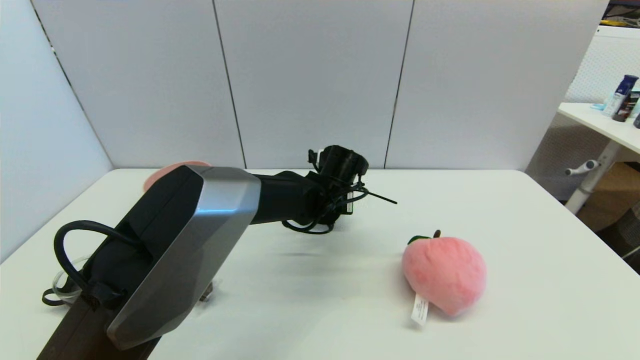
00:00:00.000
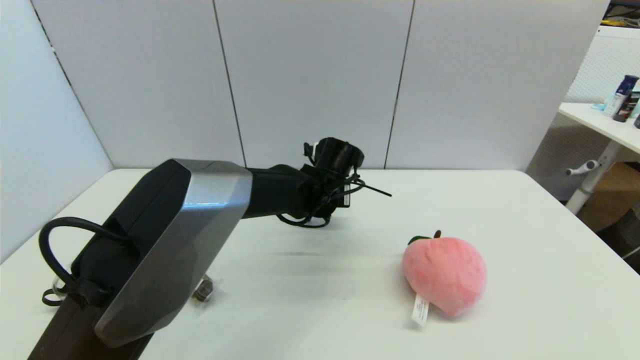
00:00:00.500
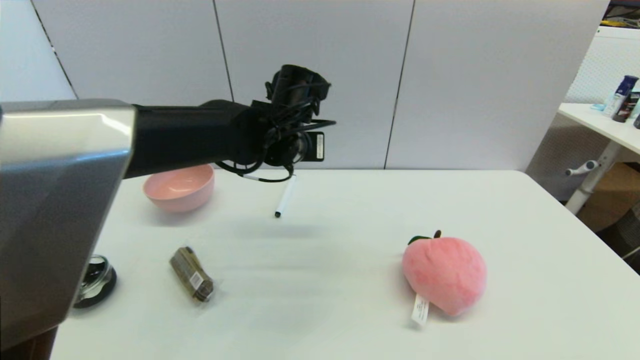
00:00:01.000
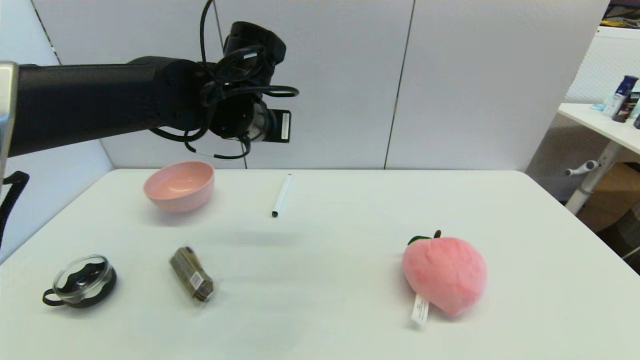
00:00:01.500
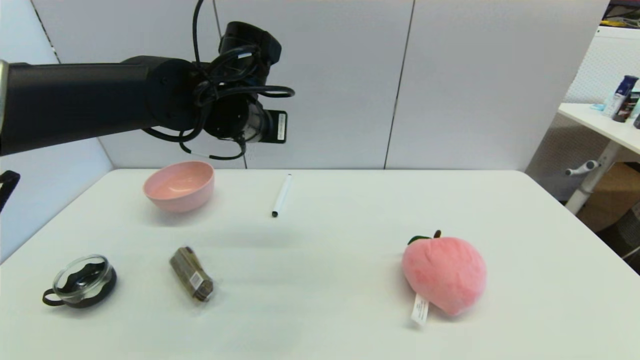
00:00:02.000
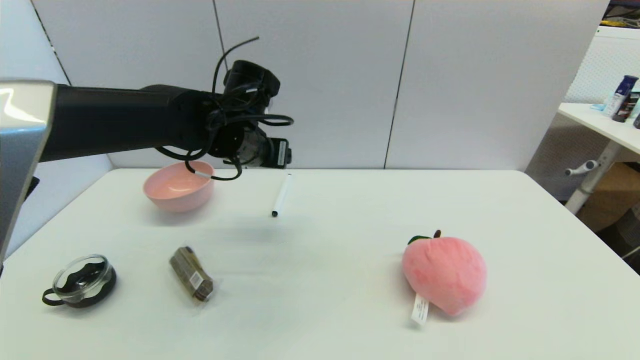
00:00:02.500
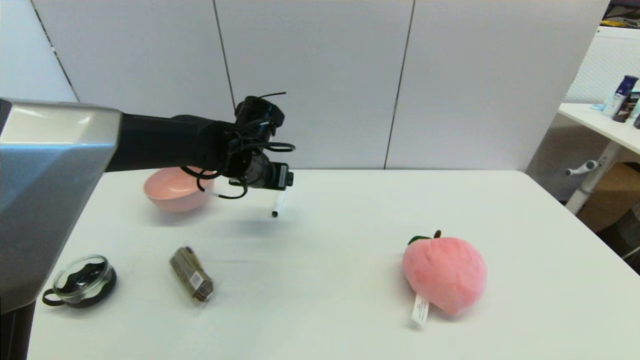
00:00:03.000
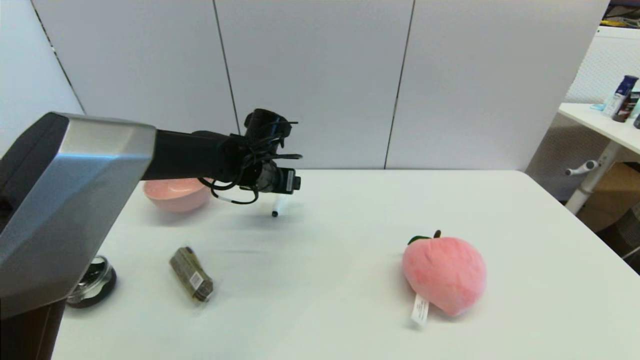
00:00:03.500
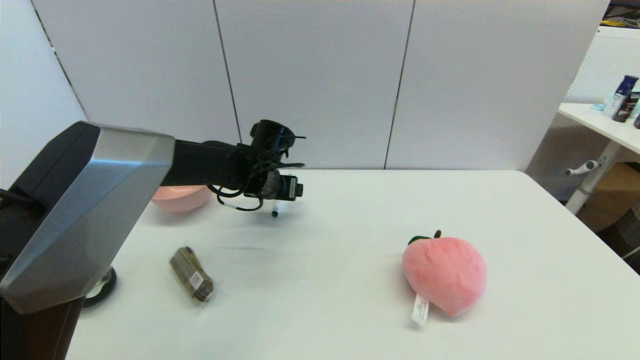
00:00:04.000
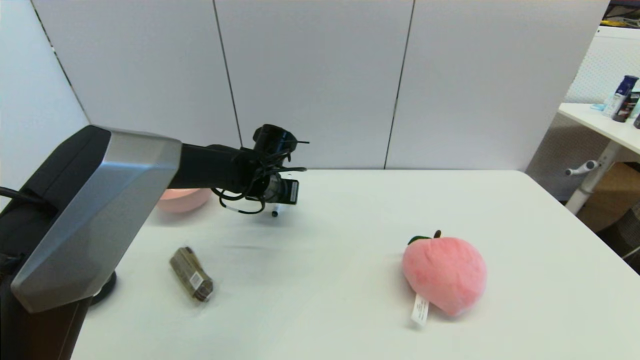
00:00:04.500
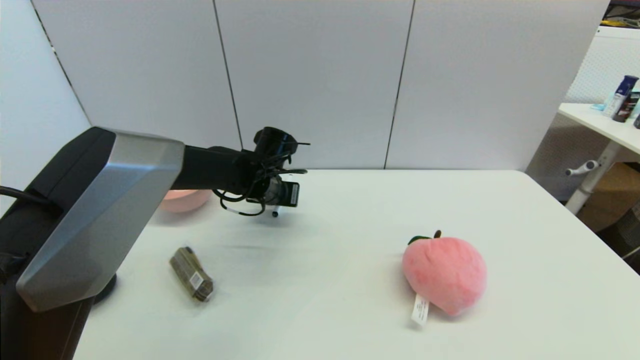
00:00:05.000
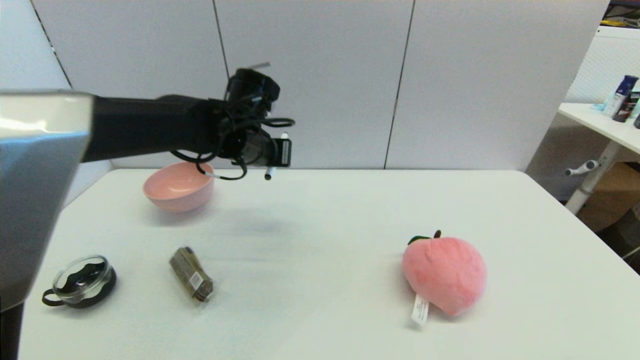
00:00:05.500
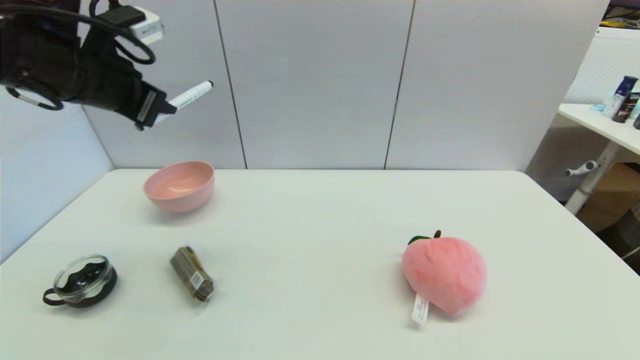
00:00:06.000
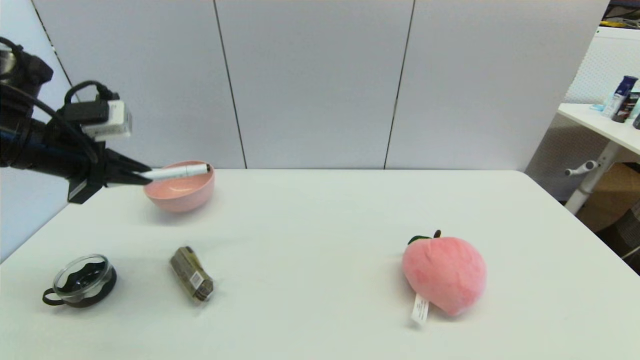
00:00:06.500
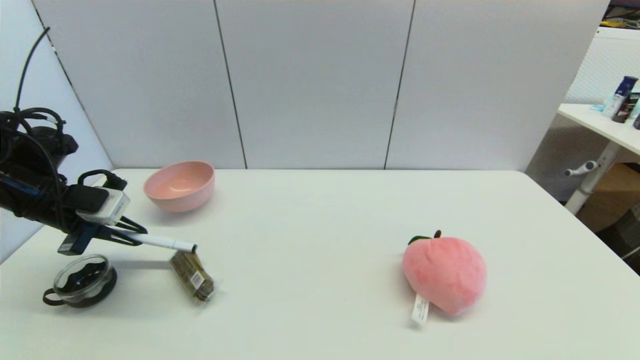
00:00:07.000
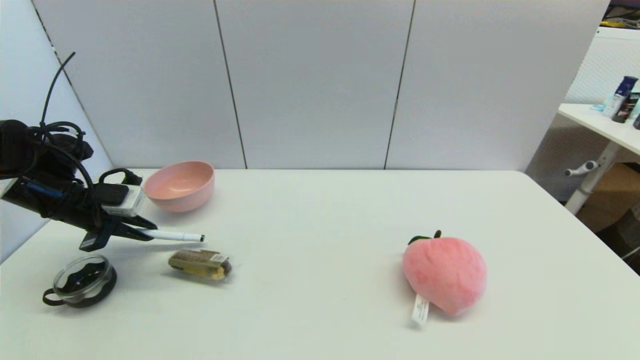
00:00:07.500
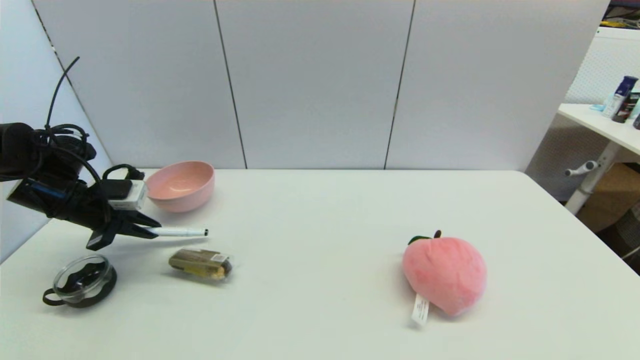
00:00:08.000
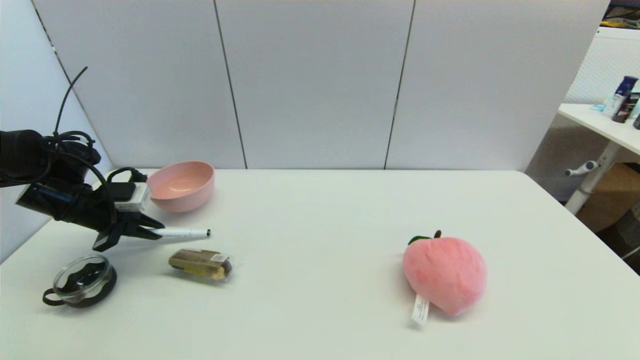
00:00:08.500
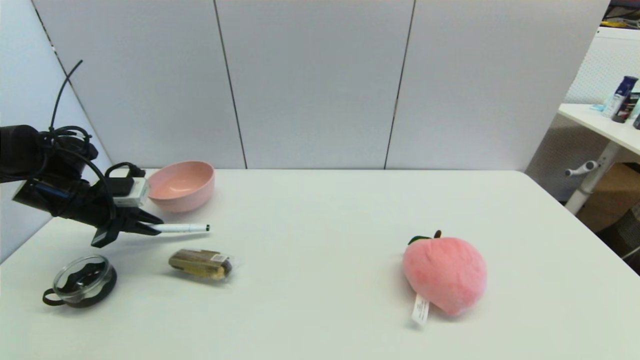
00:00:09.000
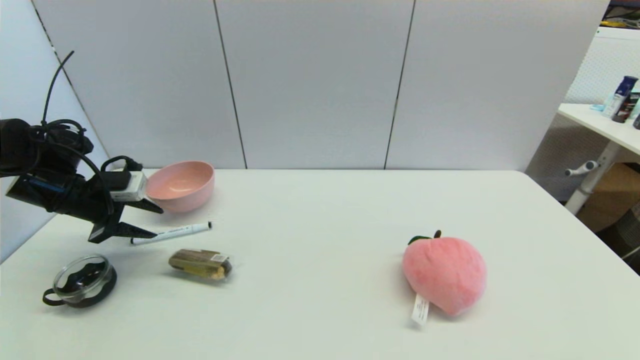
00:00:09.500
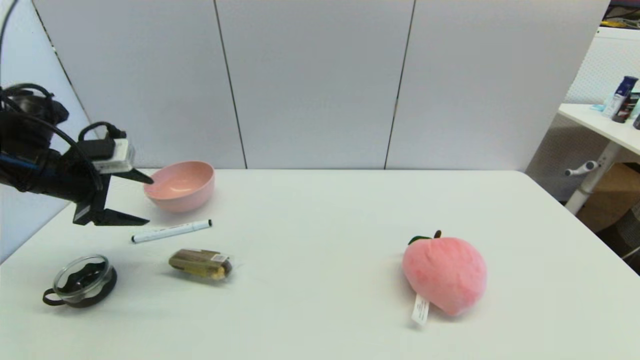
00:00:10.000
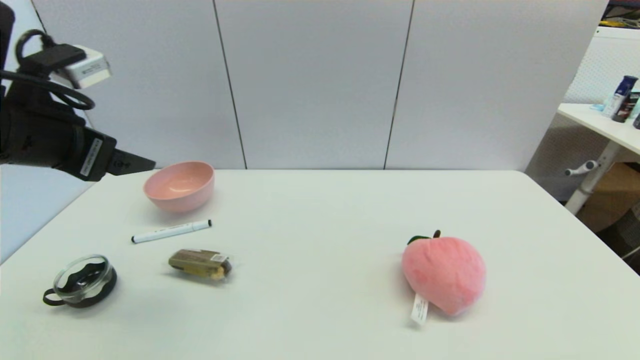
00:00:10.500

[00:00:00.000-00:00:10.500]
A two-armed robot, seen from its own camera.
Task of the whole recording: put the black marker in the designated position.
Step, 00:00:00.000 to 00:00:04.500: Grasp the Marker pen with left gripper.
Step, 00:00:05.500 to 00:00:09.000: Place the Marker pen on the table with left gripper.
00:00:00.000 to 00:00:02.000: The left gripper moves upward and to the left, roughly 20 cm, and closes, then reopens.
00:00:02.000 to 00:00:04.000: The left gripper travels downward and forward by some 15 cm, and opens up.
00:00:04.000 to 00:00:06.500: The left gripper heads to the left, backward and upward, covering approximately 30 cm, and closes its fingers.
00:00:06.500 to 00:00:08.500: The left gripper is displaced downward and forward by roughly 15 cm.
00:00:08.500 to 00:00:10.500: The left gripper moves upward, backward and to the right, roughly 25 cm, and opens.

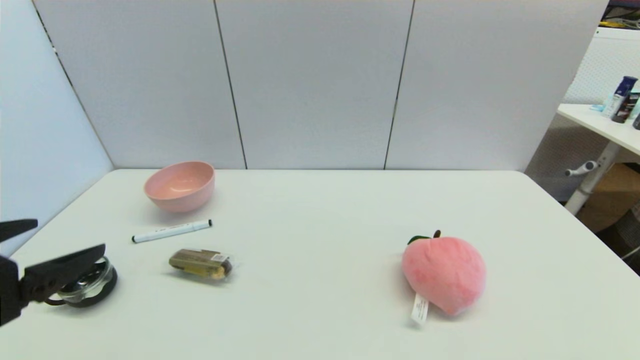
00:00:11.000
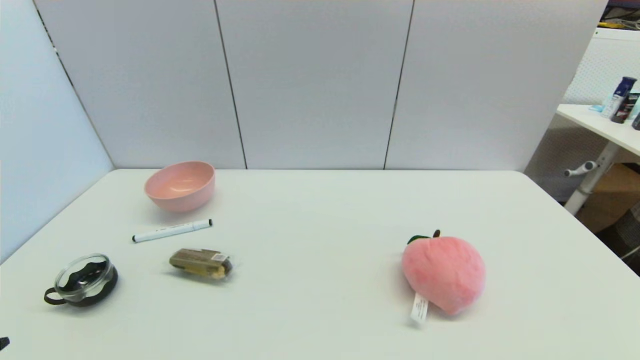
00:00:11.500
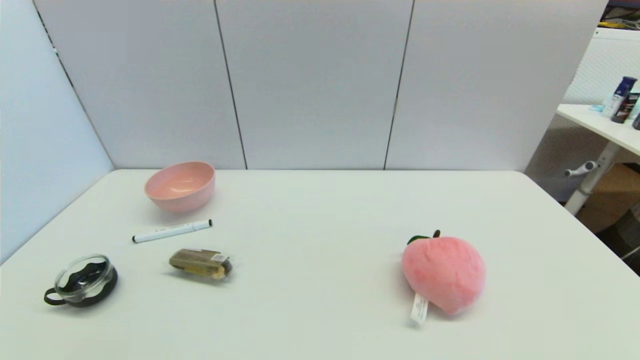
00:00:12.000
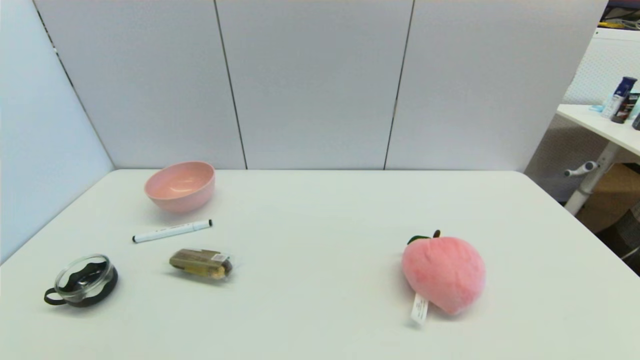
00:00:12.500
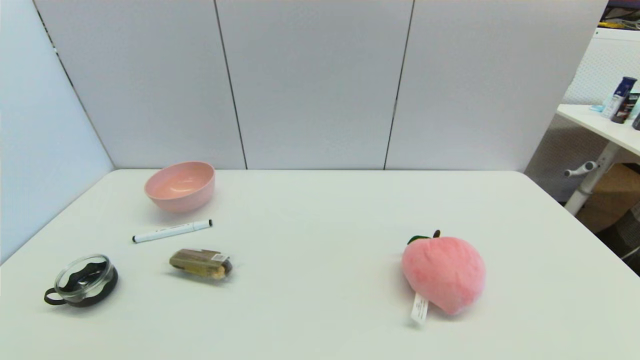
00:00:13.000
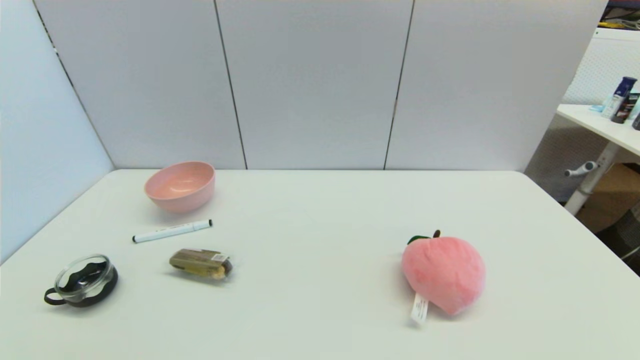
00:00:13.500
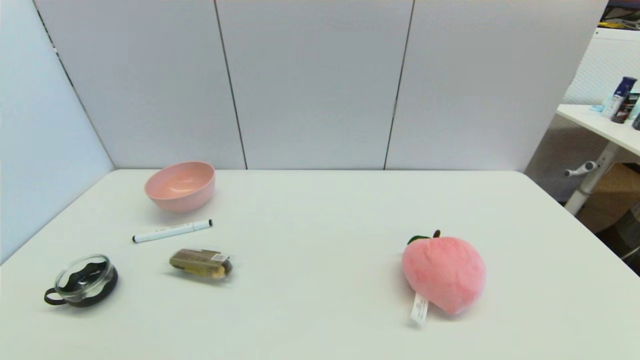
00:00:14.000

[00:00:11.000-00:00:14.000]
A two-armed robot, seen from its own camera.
Task of the whole recording: put the black marker in the designated position.
00:00:11.000 to 00:00:12.500: The left gripper shifts about 20 cm downward and backward.
00:00:12.500 to 00:00:14.000: The two grippers keep their place.
